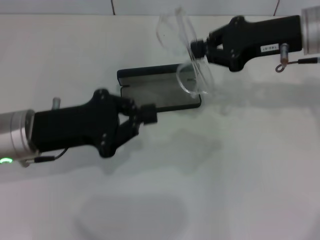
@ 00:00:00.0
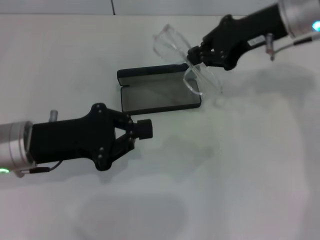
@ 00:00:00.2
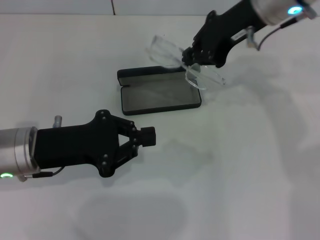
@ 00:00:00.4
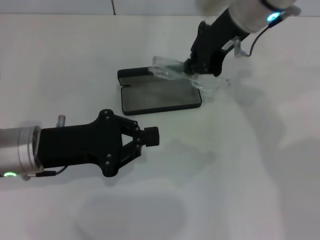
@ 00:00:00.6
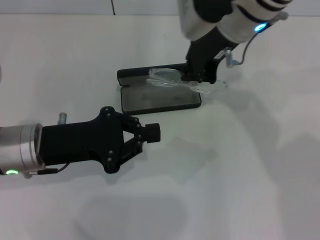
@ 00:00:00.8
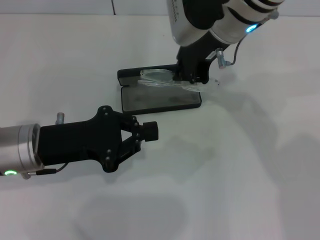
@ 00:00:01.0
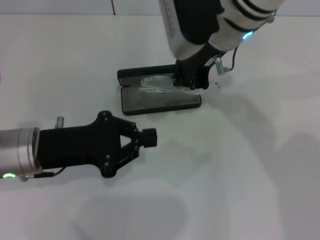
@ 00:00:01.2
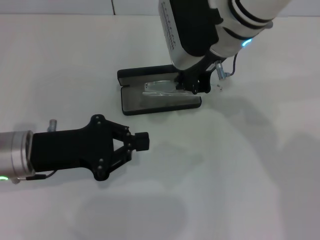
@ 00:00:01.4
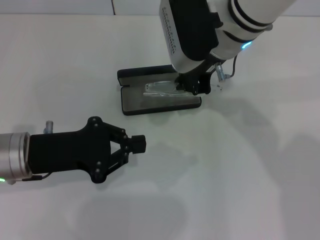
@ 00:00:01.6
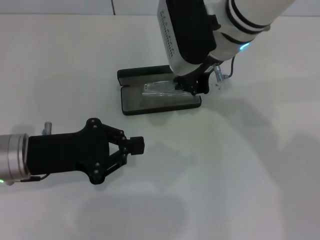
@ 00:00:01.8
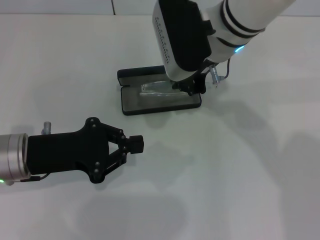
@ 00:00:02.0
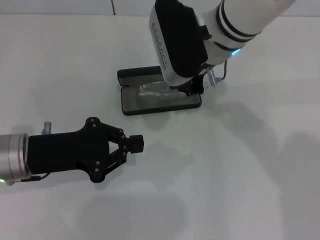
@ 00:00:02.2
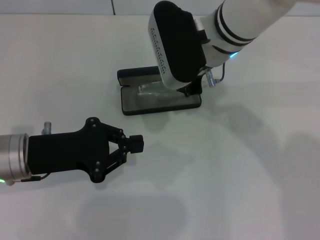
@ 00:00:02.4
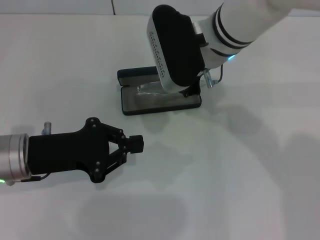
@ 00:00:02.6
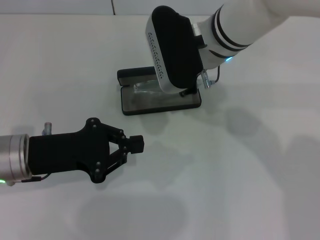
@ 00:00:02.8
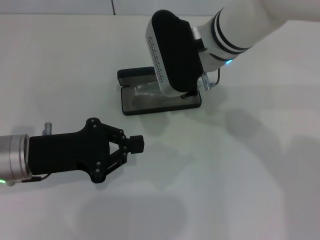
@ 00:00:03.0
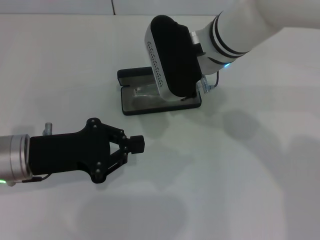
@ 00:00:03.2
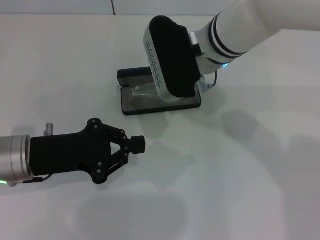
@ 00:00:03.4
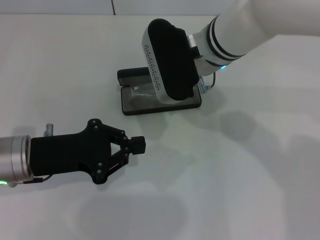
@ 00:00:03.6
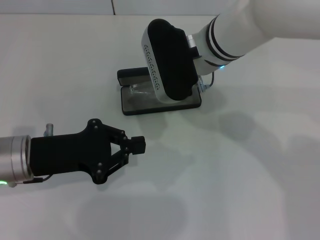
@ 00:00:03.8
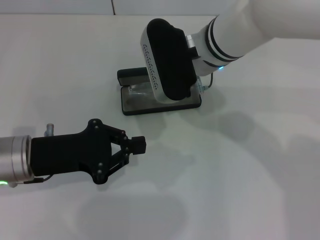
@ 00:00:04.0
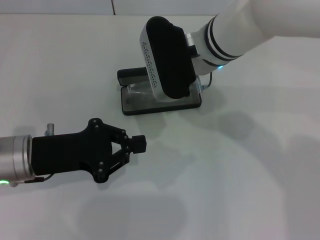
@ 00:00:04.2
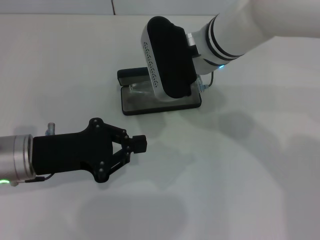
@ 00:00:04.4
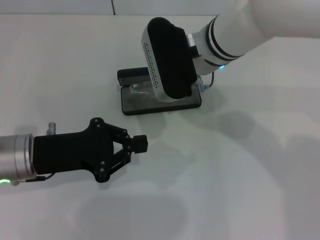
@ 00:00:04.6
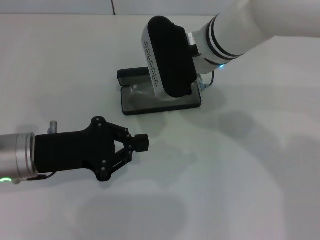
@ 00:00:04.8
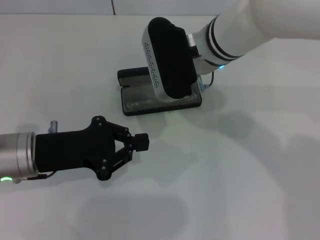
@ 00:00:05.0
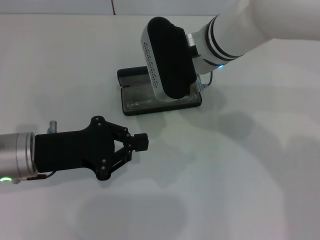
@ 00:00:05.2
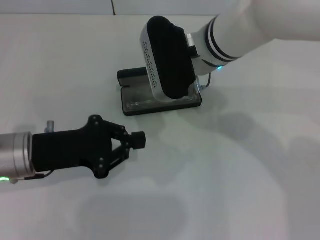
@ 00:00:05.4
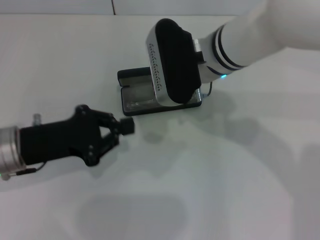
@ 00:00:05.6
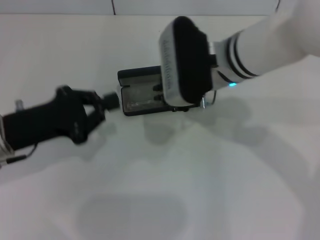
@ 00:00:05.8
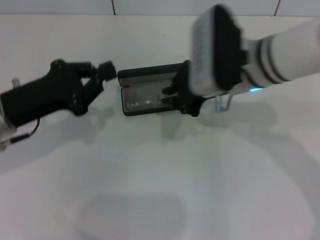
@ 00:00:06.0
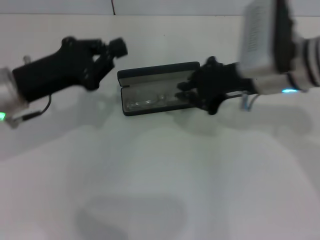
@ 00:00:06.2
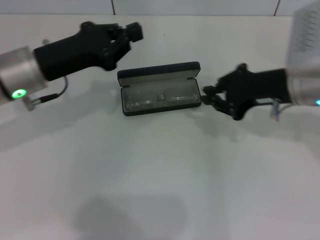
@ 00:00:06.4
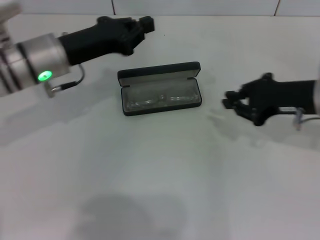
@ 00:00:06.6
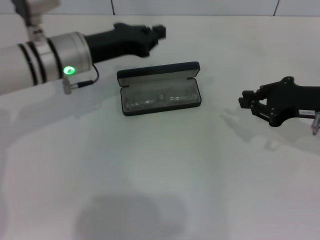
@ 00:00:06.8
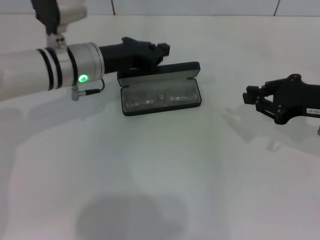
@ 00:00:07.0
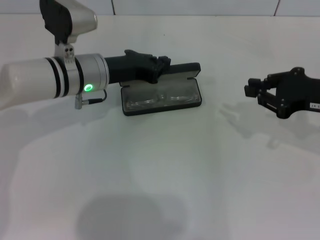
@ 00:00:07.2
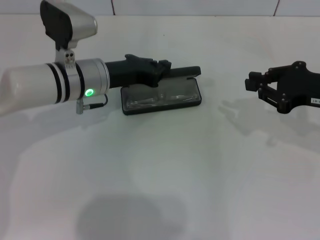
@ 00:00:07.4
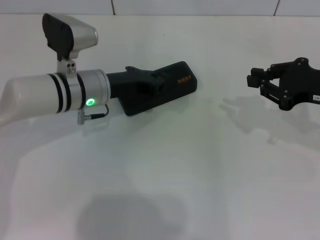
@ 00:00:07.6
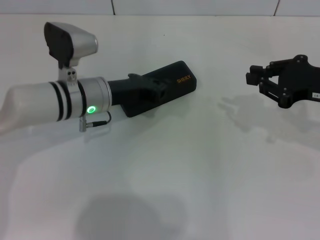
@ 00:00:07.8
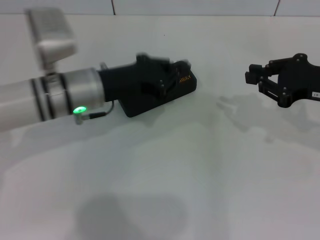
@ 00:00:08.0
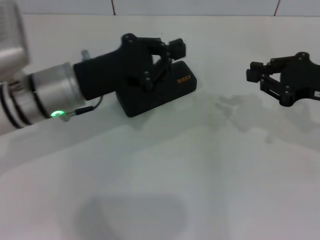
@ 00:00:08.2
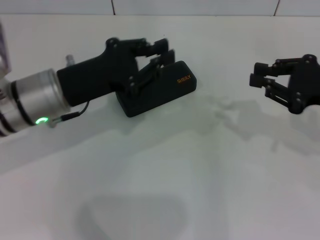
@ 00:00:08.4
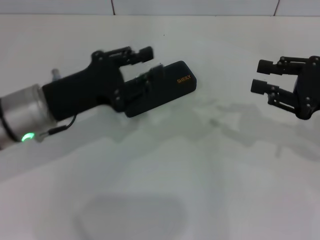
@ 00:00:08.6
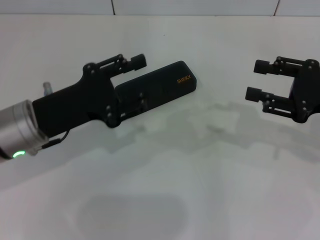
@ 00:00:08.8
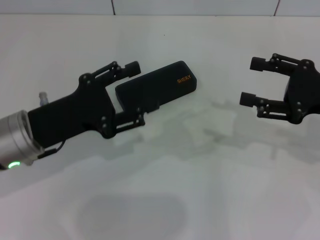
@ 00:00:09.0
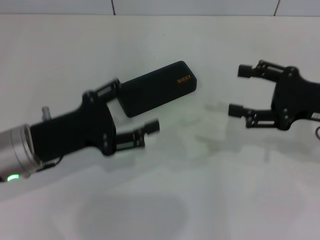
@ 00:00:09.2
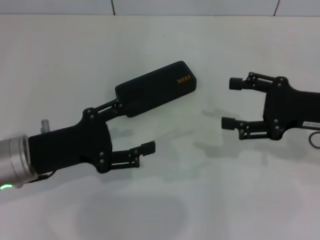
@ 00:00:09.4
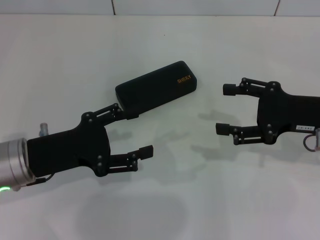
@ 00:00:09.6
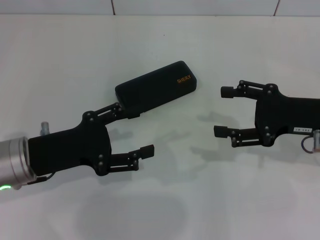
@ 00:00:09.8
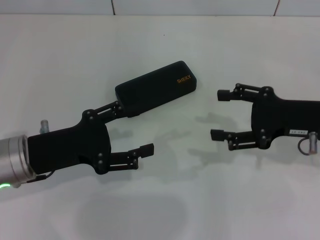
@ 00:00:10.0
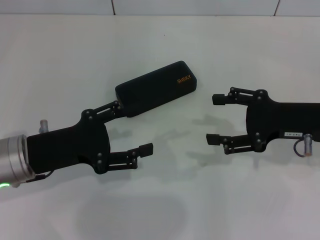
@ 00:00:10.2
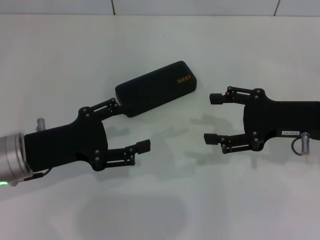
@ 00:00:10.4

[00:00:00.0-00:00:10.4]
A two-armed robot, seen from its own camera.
Step, 00:00:00.0 to 00:00:05.2: Put the glasses into the case with your right hand.
Step, 00:00:05.4 to 00:00:07.4: Close the glasses case with your left hand.
00:00:00.0 to 00:00:01.4: The right gripper goes roughly 15 cm to the left.
00:00:01.4 to 00:00:03.0: There are only small adjustments of the grippers.
00:00:03.0 to 00:00:04.4: Neither gripper changes place.
00:00:04.4 to 00:00:06.0: The right gripper is displaced to the right by some 5 cm.
00:00:06.0 to 00:00:07.4: The left gripper heads to the right and forward, covering some 15 cm. The right gripper moves to the right, about 20 cm.
00:00:07.4 to 00:00:09.0: The left gripper is displaced backward and to the left by roughly 15 cm, and opens. Meanwhile the right gripper opens its fingers.
00:00:09.0 to 00:00:10.4: The right gripper changes place by some 5 cm. Meanwhile the left gripper opens up.
